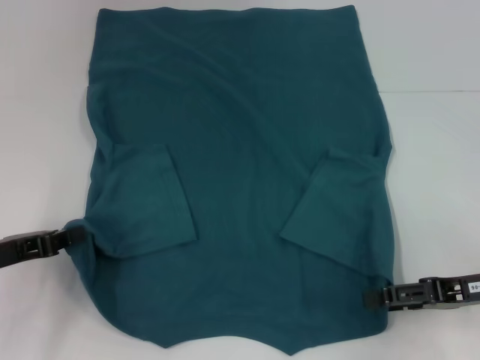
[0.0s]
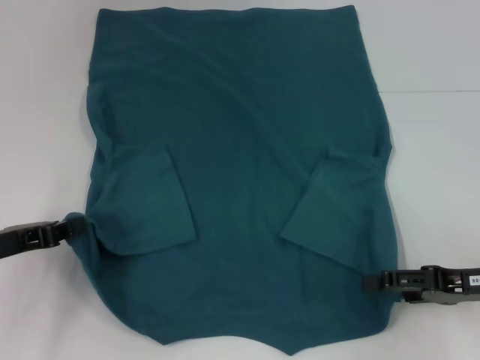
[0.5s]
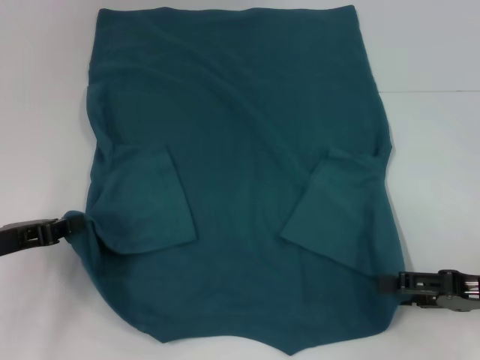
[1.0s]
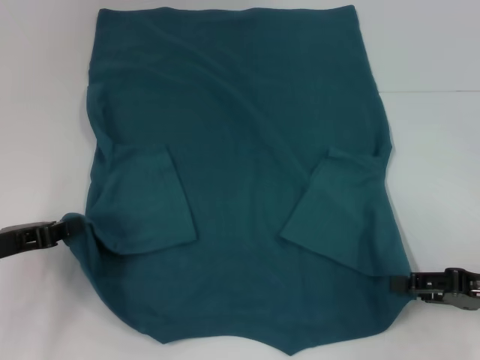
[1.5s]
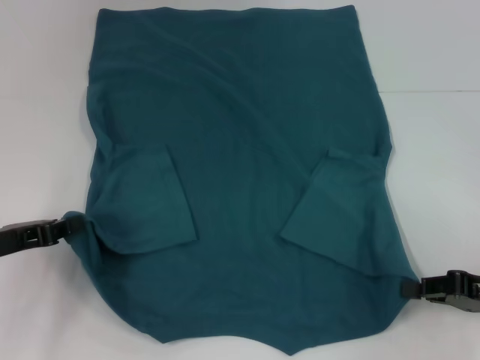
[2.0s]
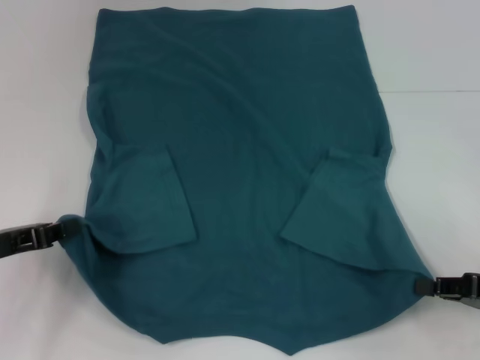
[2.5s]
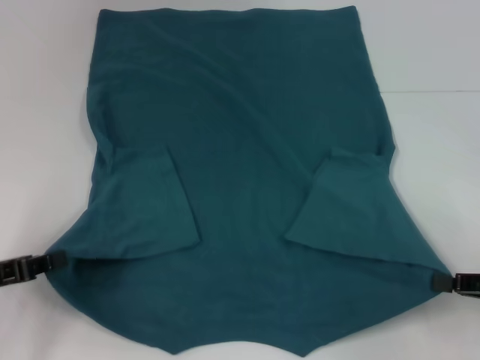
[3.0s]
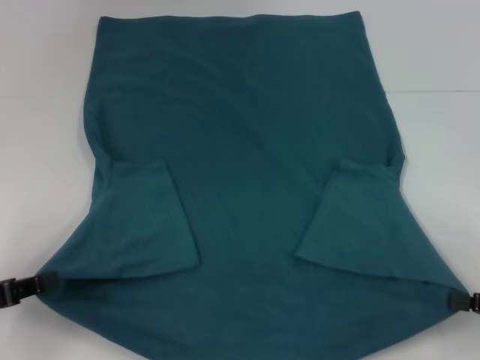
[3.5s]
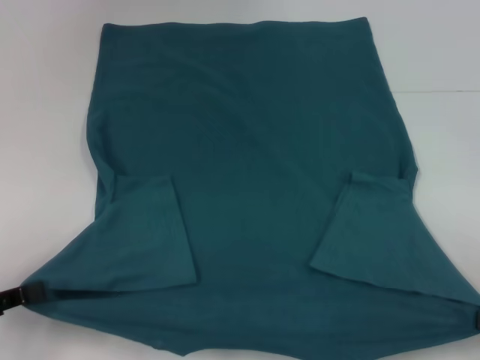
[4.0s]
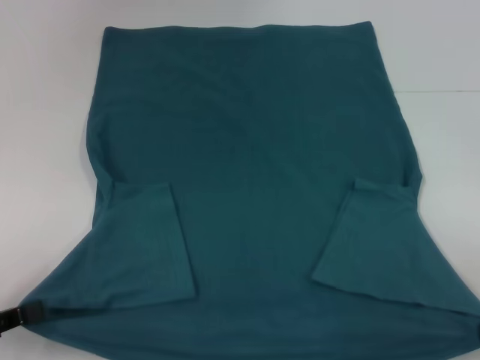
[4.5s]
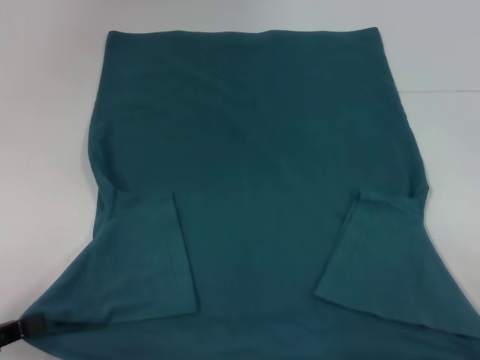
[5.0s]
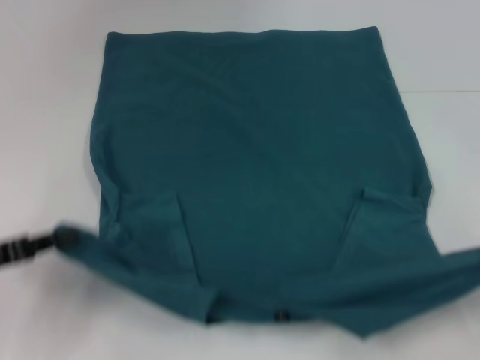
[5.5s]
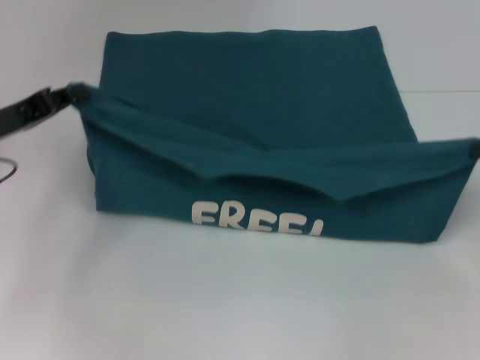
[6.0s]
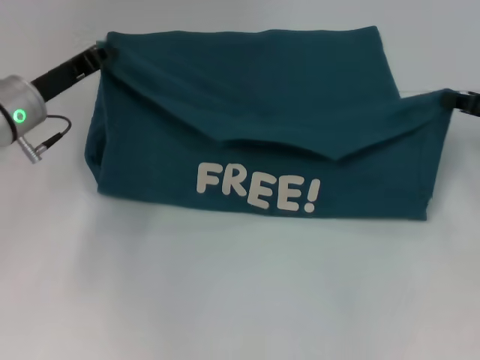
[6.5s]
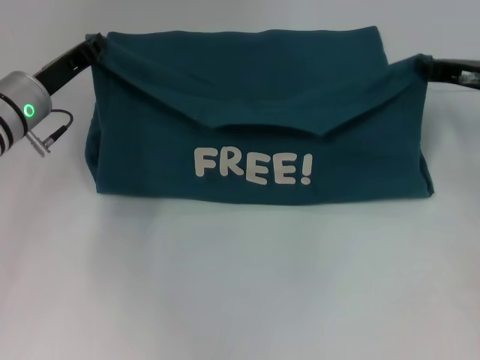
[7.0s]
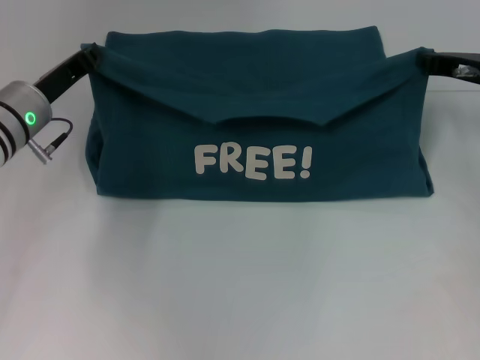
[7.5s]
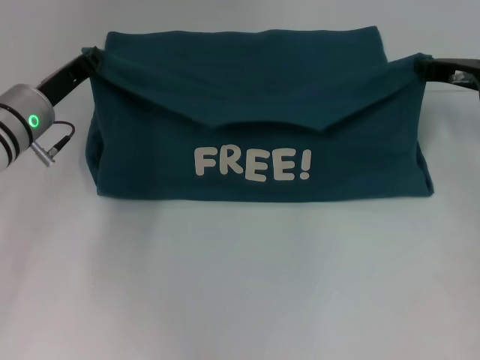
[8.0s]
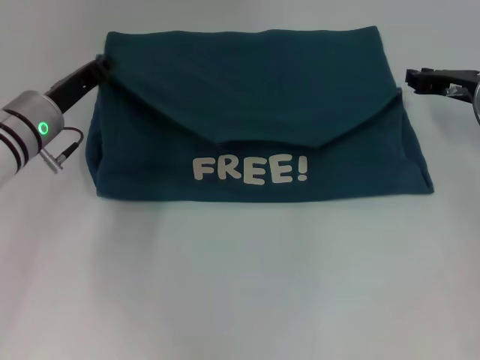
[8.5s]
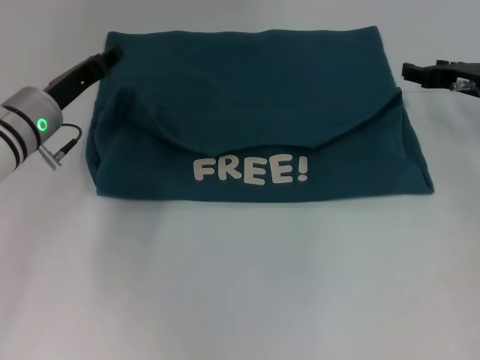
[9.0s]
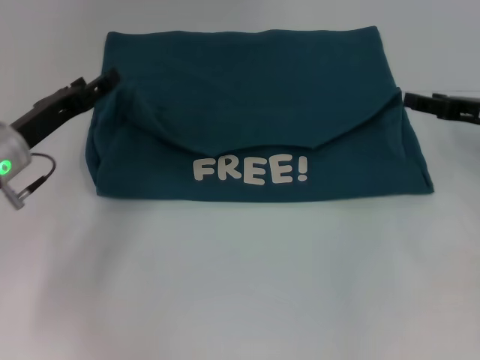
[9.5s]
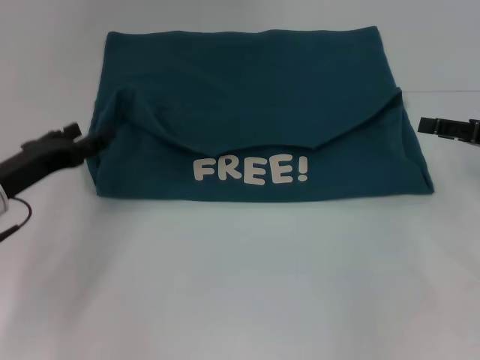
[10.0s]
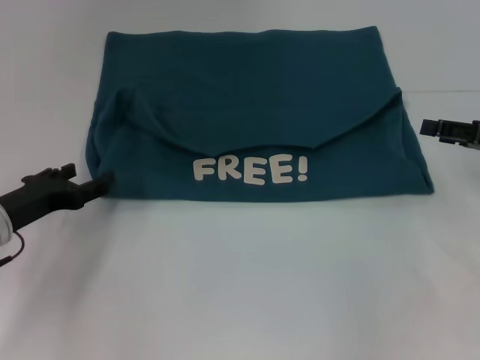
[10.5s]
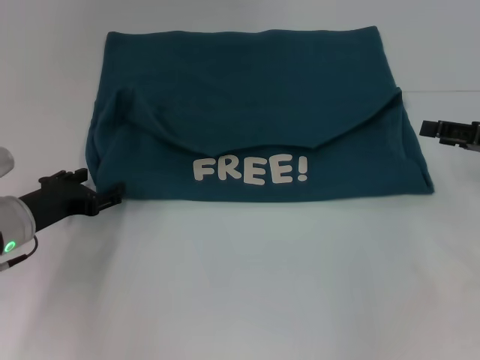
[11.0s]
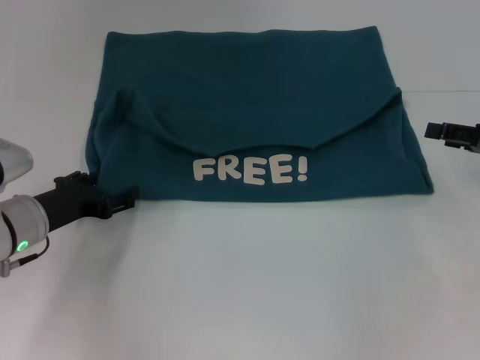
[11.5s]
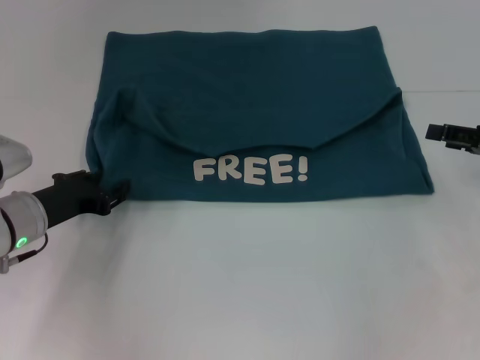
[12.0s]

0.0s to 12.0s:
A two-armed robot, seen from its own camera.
Step, 0.0s to 2.0s: Grab the bottom right corner with your right hand.
Step, 2.5s to 9.0s: Fold the clothes to the left.
Step, 2.5s to 9.0s: Fold the clothes to the right.
0.0s to 2.0s: The right gripper closes up.
2.0s to 4.0s: The left gripper travels backward by roughly 10 cm, while the right gripper is displaced to the right and backward by approximately 10 cm.
4.0s to 6.0s: The right gripper shifts approximately 15 cm forward and upward; the left gripper heads forward, covering about 15 cm.
6.0s to 8.0s: The left gripper heads to the right and forward, covering some 10 cm. Meanwhile the right gripper heads forward and to the left, covering about 15 cm.
8.0s to 10.0s: The left gripper travels backward by some 10 cm, and opens its fingers; the right gripper shifts roughly 10 cm backward and to the right, and opens its fingers.

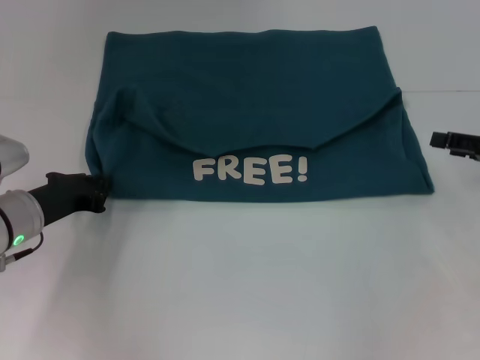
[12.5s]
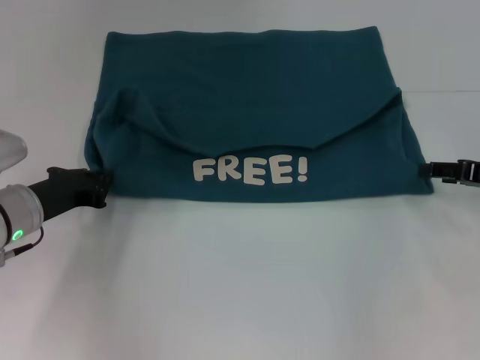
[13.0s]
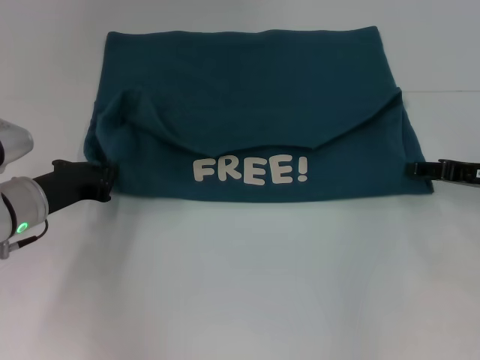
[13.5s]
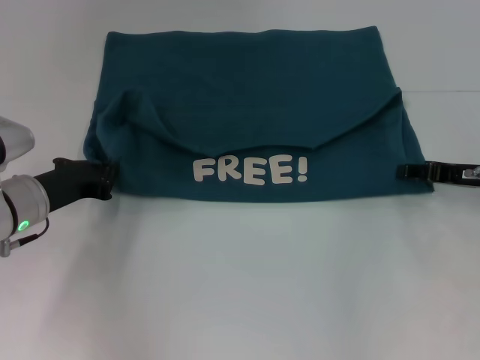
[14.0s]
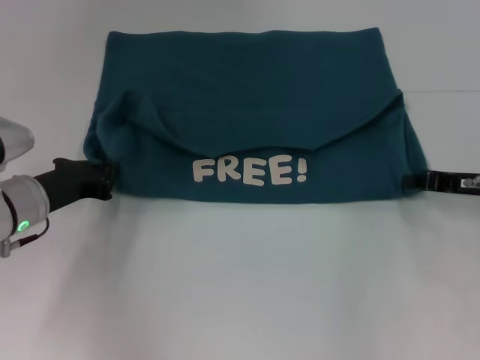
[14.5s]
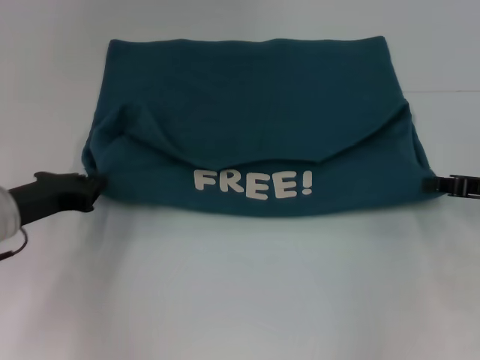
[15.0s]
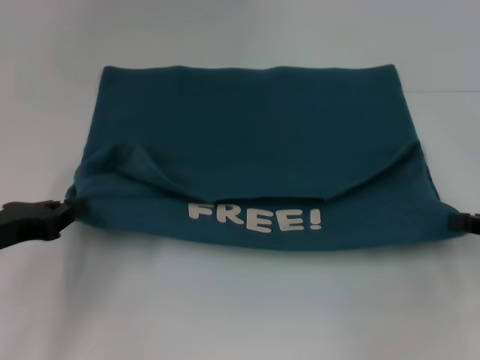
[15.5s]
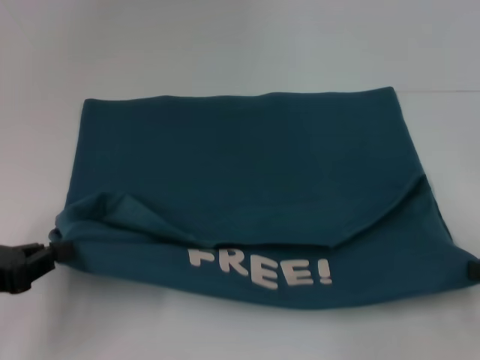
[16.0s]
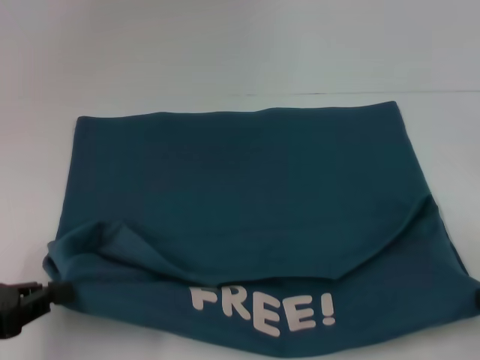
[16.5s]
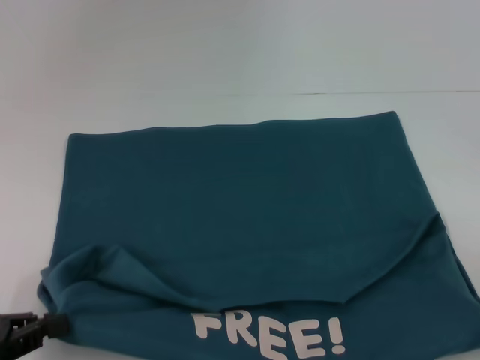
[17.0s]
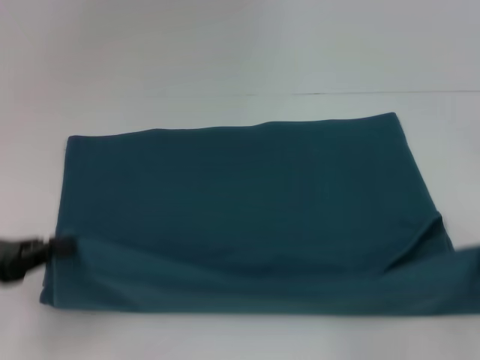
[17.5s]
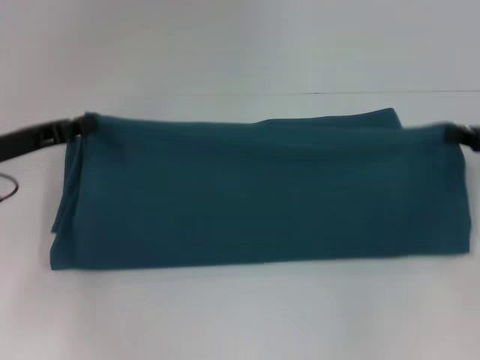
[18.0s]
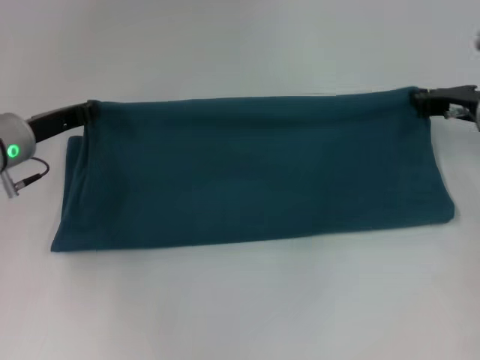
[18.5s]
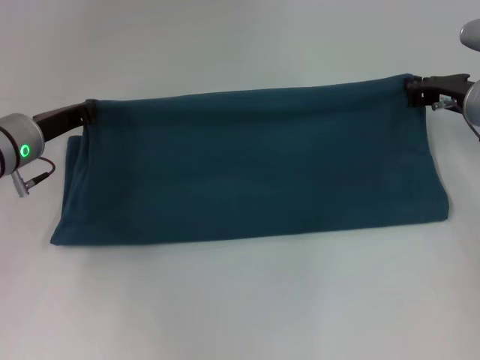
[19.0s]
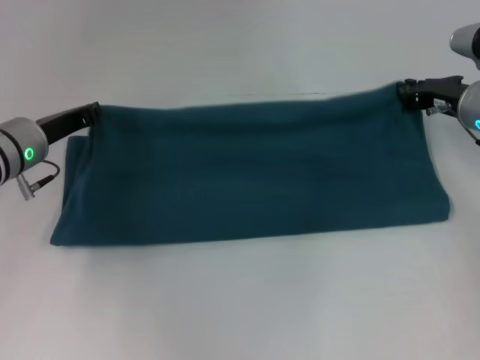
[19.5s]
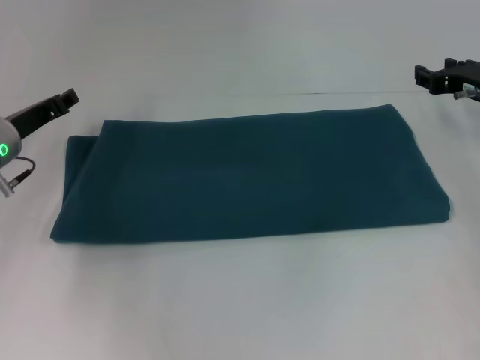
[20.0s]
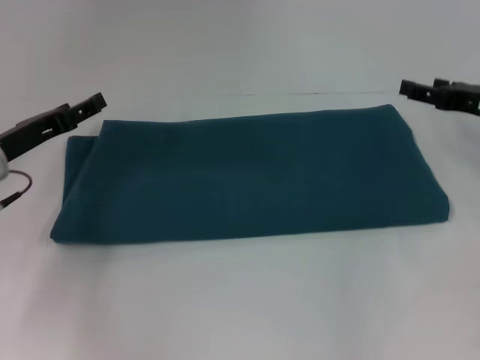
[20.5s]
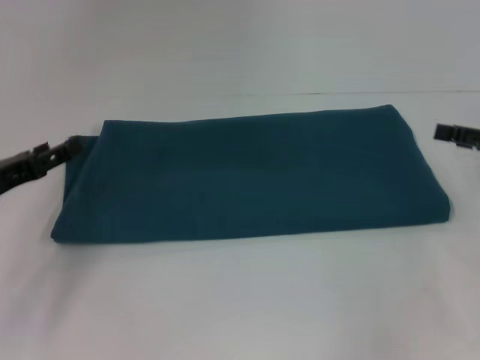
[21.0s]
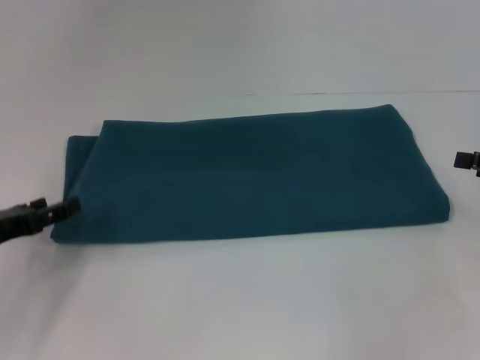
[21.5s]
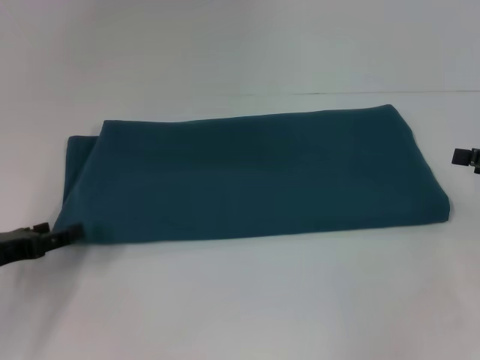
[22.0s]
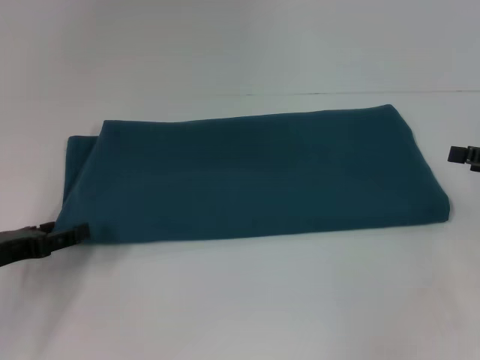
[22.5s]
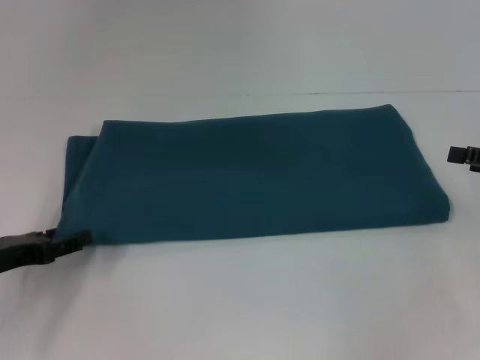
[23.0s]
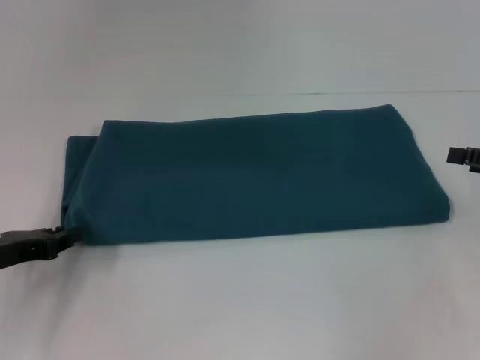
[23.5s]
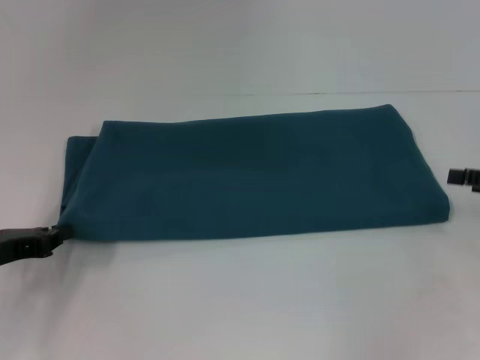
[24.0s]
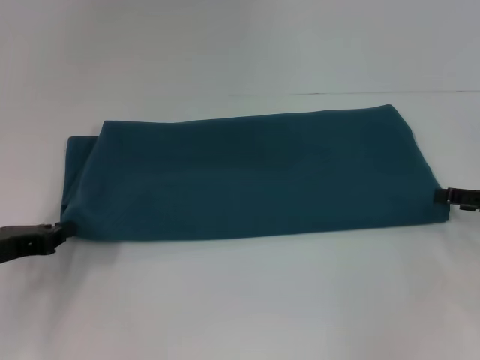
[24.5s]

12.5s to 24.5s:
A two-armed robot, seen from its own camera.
Step, 12.5s to 17.0s: Pull the clothes with your left hand.
Step, 12.5s to 17.0s: Pull the clothes with your right hand.
Step, 17.5s to 19.5s: Fold the clothes to the right.
12.5s to 14.5s: The right gripper moves about 5 cm, and closes.
14.5s to 16.5s: The right gripper is displaced backward and to the right by about 15 cm; the left gripper goes approximately 15 cm backward and to the left.
16.5s to 18.5s: The right gripper heads forward and to the left, covering about 25 cm, while the left gripper shifts about 20 cm forward.
18.5s to 20.5s: The right gripper shifts by roughly 5 cm, and opens up; the left gripper opens its fingers.
20.5s to 22.5s: The right gripper goes approximately 10 cm backward and to the right; the left gripper shifts roughly 10 cm backward.
22.5s to 24.5s: The left gripper closes its fingers.

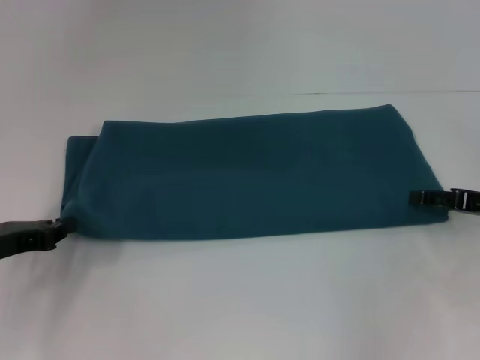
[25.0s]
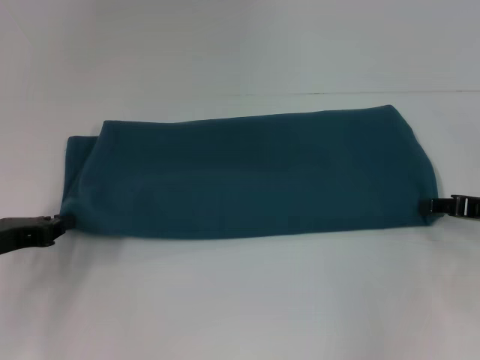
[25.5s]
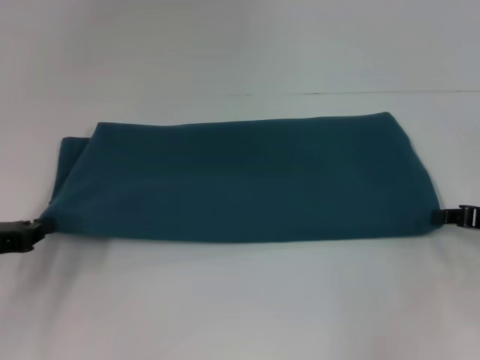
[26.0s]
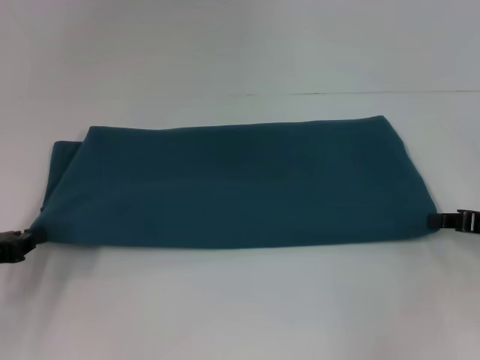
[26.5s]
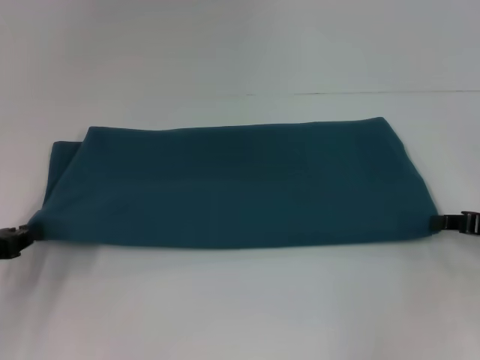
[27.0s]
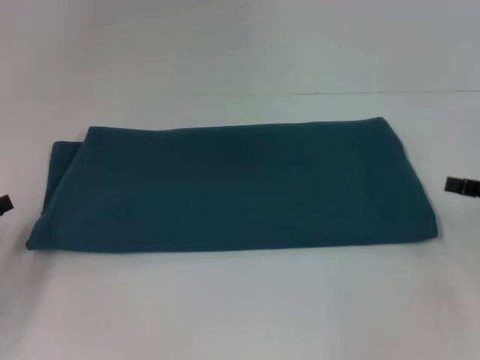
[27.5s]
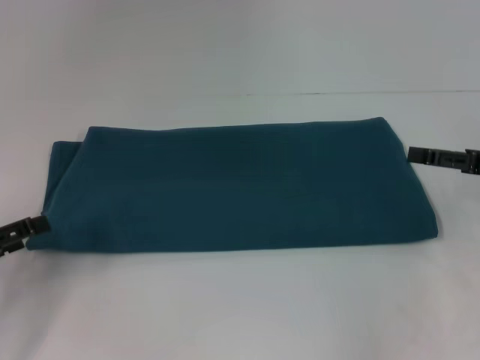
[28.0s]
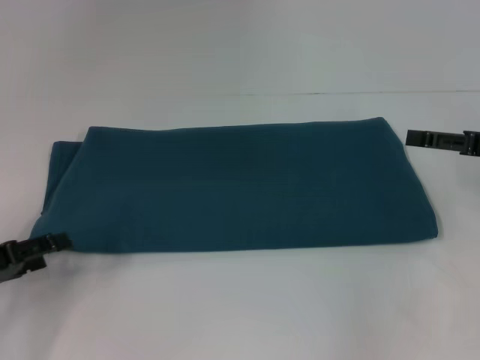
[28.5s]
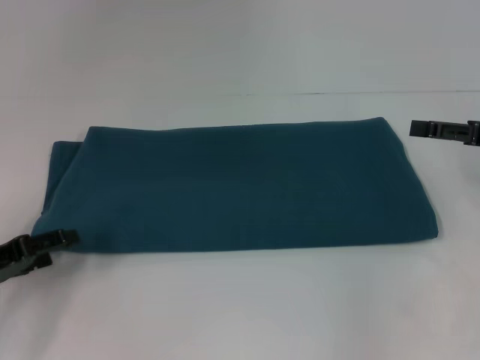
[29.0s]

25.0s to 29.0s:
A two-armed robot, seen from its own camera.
25.0s to 27.0s: The right gripper closes.
27.0s to 29.0s: The left gripper opens, while the right gripper shifts roughly 5 cm upward, and opens up.
